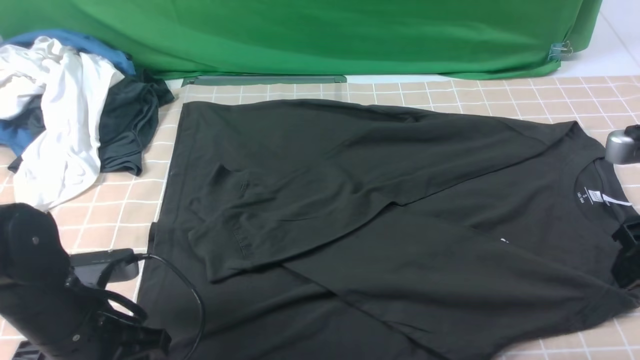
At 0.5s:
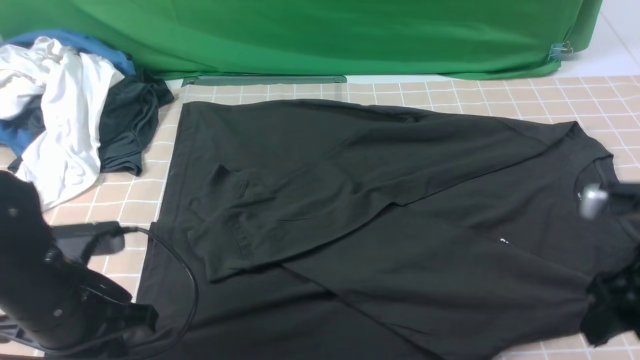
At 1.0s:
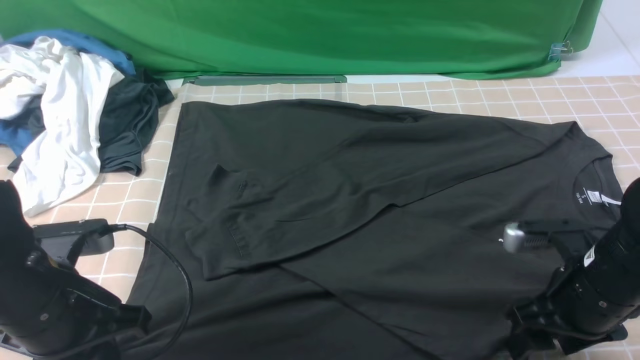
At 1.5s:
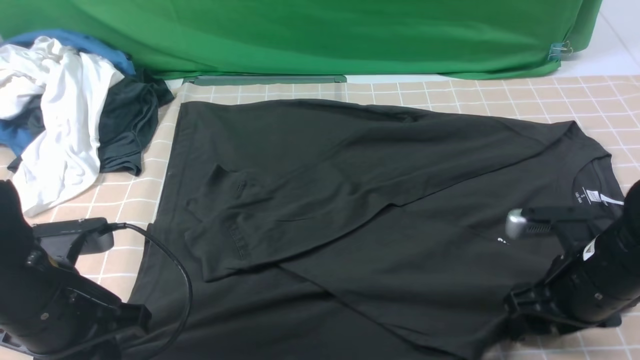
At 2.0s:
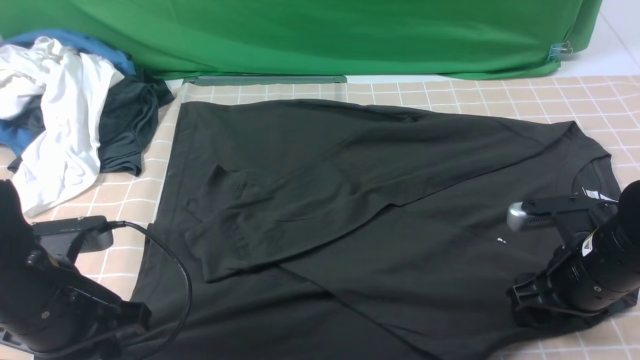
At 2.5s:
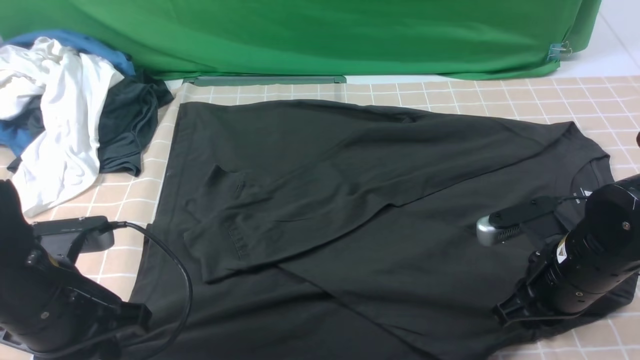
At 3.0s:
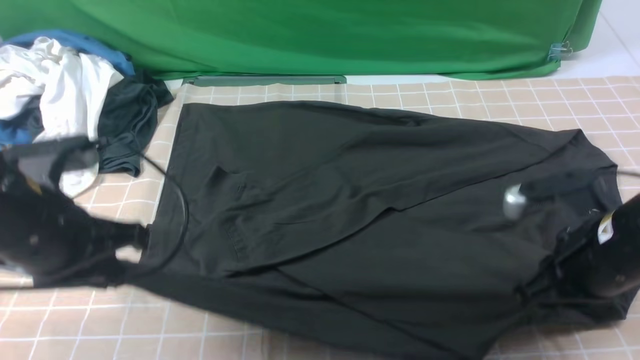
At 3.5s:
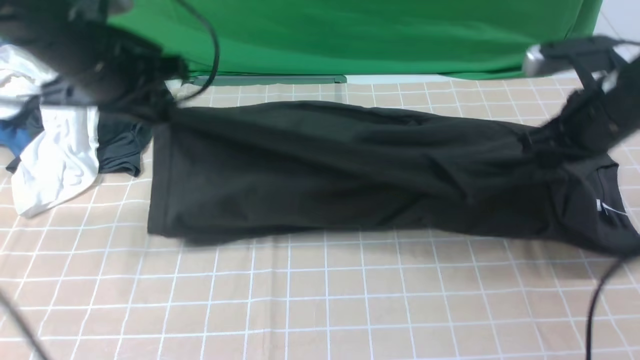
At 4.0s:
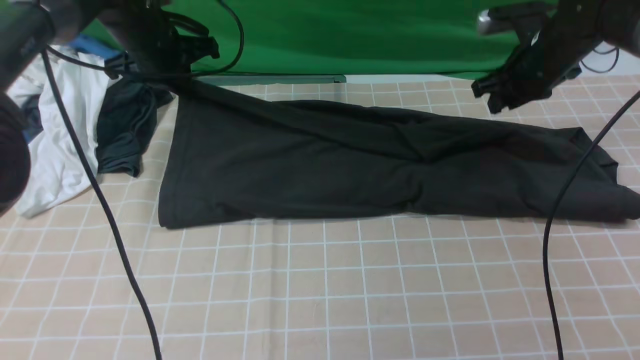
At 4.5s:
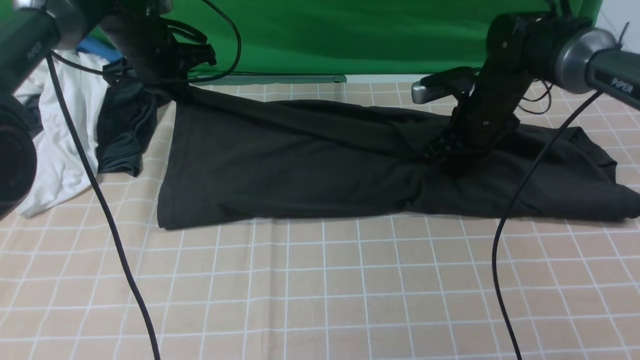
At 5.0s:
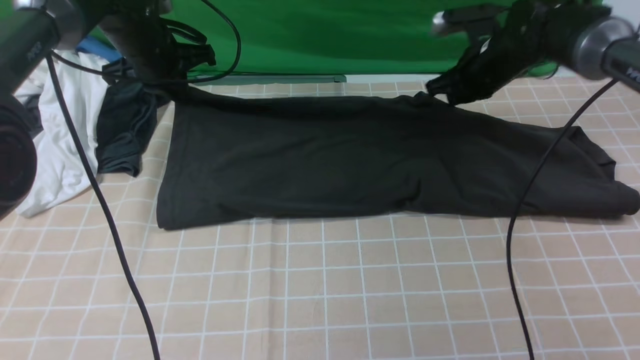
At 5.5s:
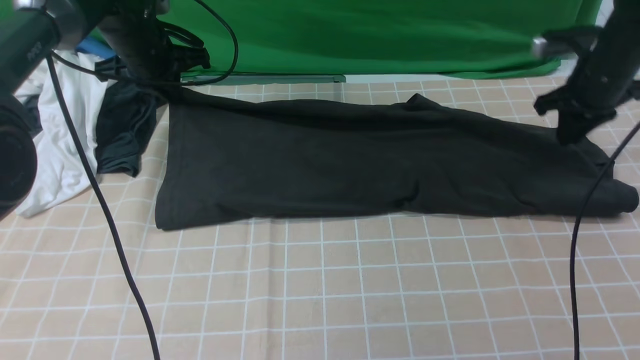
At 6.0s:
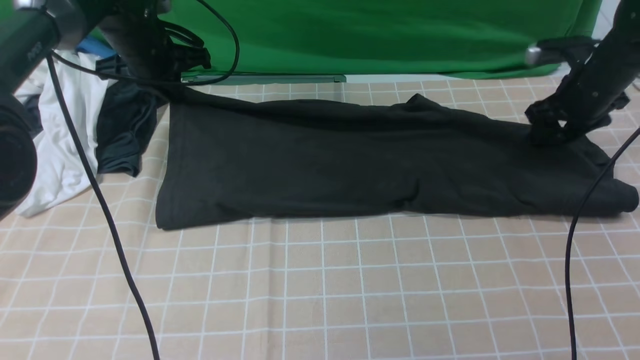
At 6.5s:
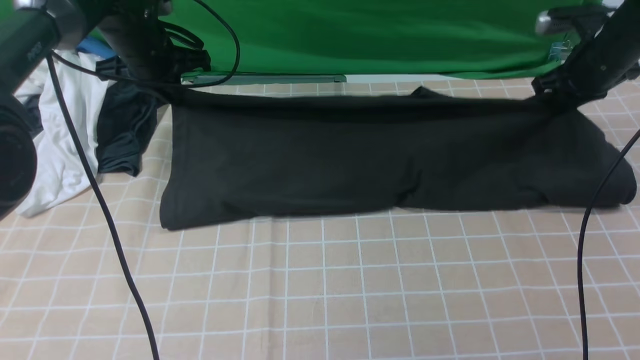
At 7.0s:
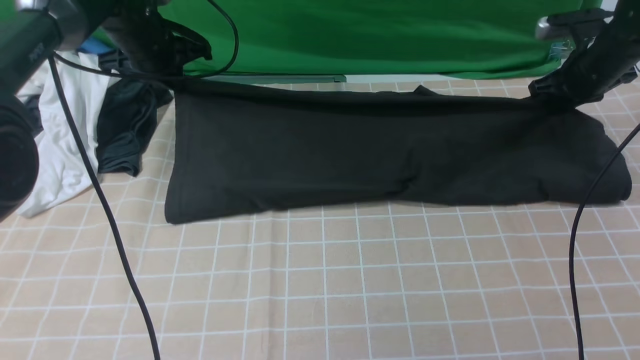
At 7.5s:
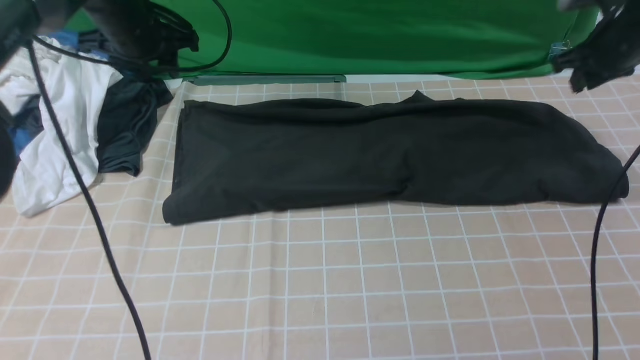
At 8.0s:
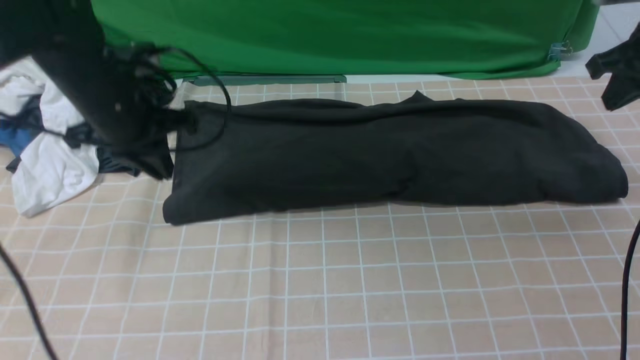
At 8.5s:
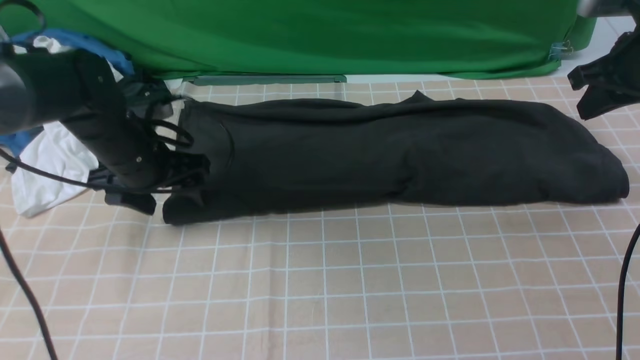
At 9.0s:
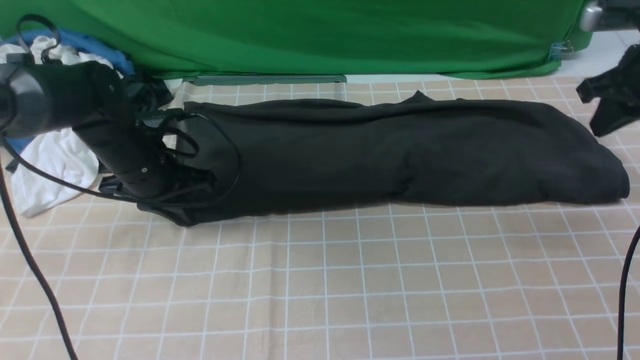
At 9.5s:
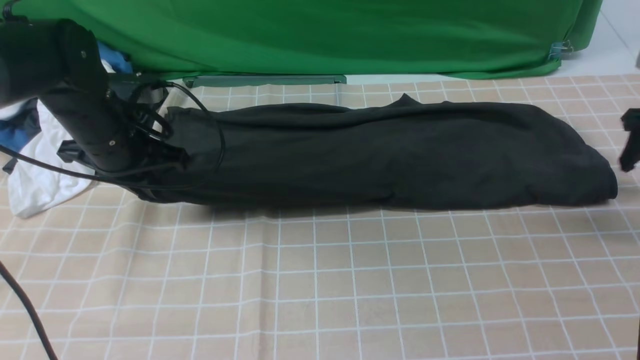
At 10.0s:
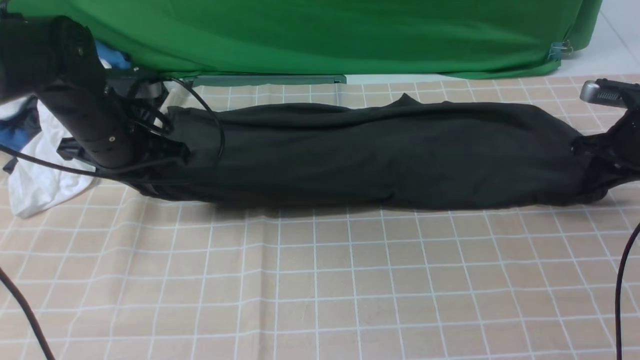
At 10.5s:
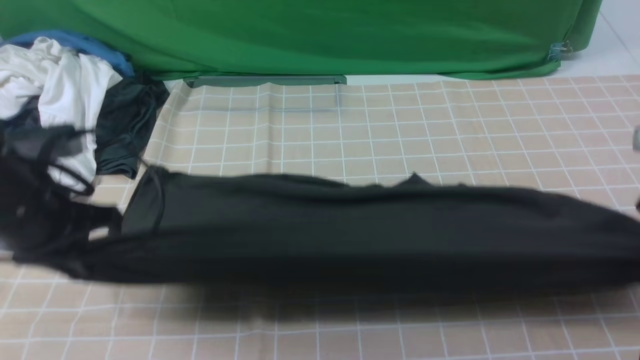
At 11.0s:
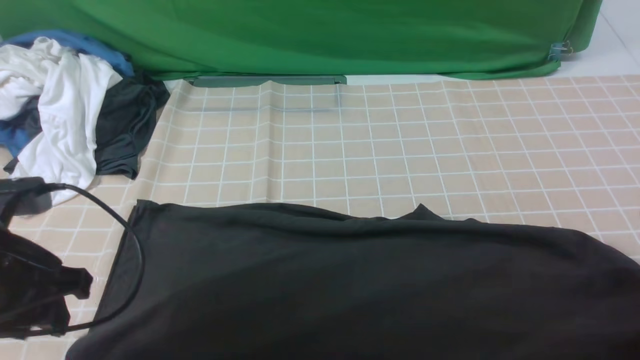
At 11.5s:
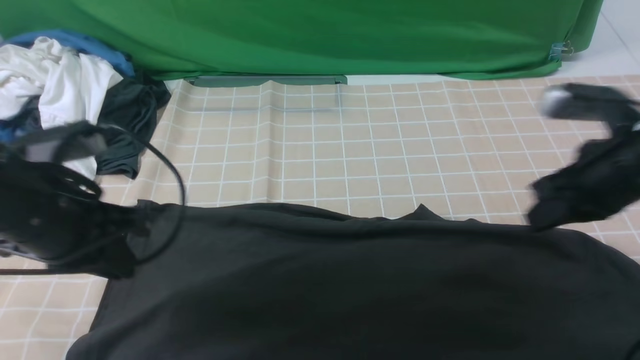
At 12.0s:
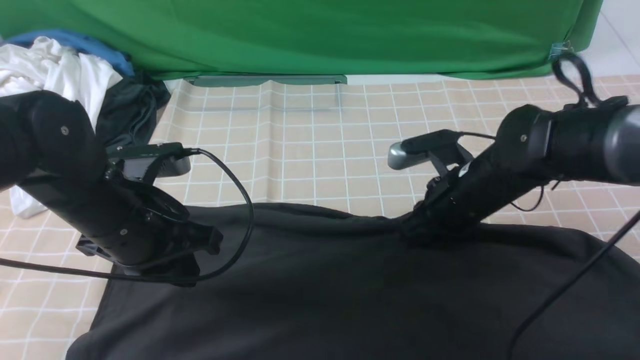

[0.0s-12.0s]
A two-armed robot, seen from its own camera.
Step, 0.0s to 2.5s: use both arms simultaneously to clamp the lower edge of the clothing fabric.
Step, 3.0s to 7.0s: use both arms to drag the lower edge of the fabric forward and fold it over the upper edge.
0.0s to 2.0s: The left gripper shifts approximately 5 cm upward, and closes its fingers; the right gripper goes some 15 cm downward and to the left.
2.0s to 4.0s: Both grippers move forward, approximately 25 cm. The right gripper closes up.
4.0s to 6.0s: The right gripper heads to the right, covering approximately 10 cm, and opens up.
6.0s to 8.0s: The right gripper shifts some 15 cm upward and backward, and closes, while the left gripper shifts approximately 10 cm backward.
8.0s to 10.0s: The right gripper moves downward, about 10 cm, and opens, then closes again. The left gripper opens, then closes once more.
10.0s to 12.0s: The left gripper shifts roughly 10 cm backward and to the right, and opens and closes again; the right gripper travels to the left by about 25 cm.

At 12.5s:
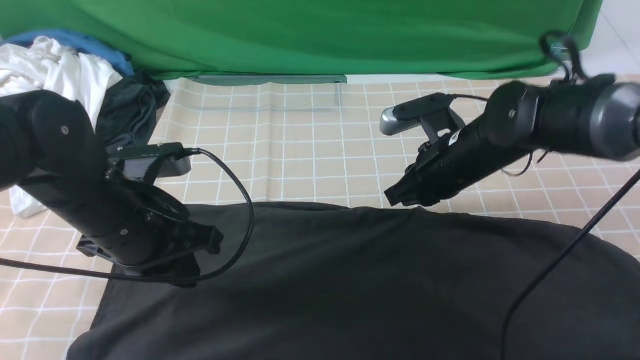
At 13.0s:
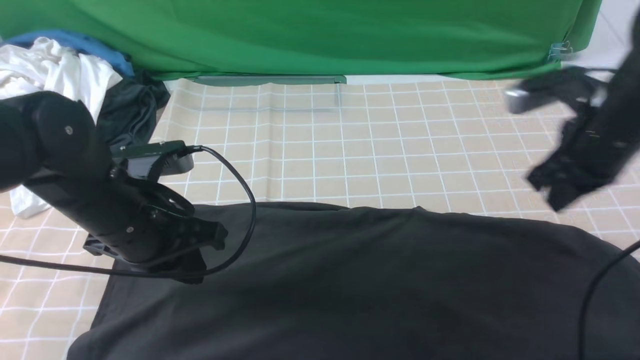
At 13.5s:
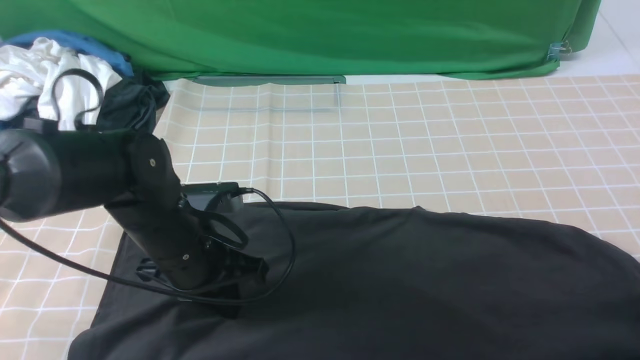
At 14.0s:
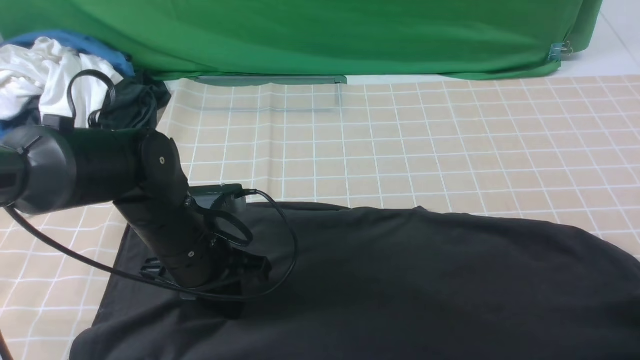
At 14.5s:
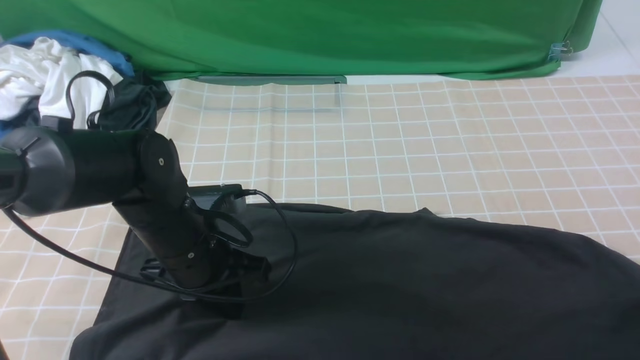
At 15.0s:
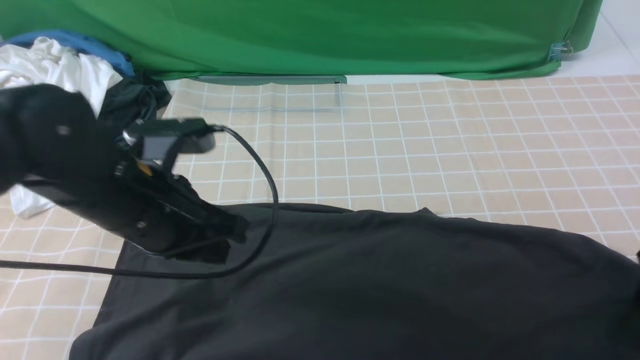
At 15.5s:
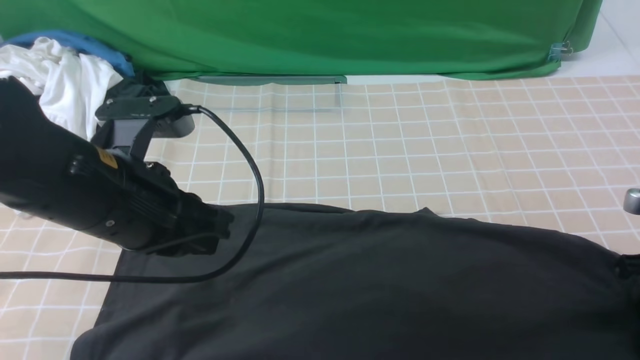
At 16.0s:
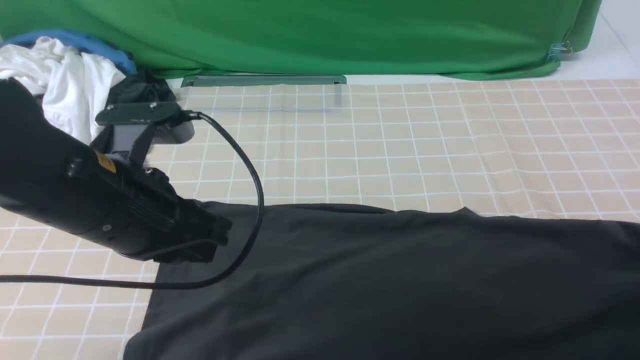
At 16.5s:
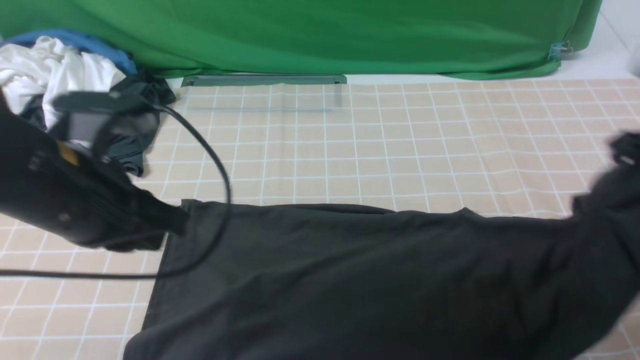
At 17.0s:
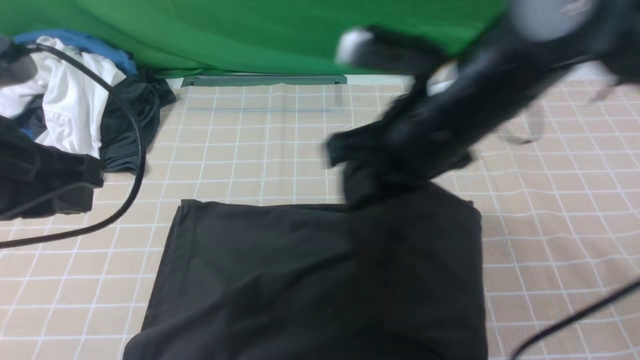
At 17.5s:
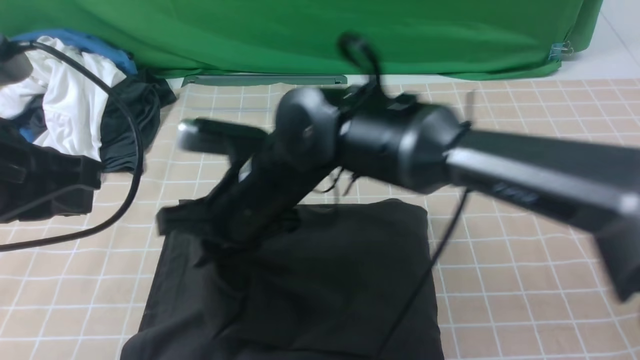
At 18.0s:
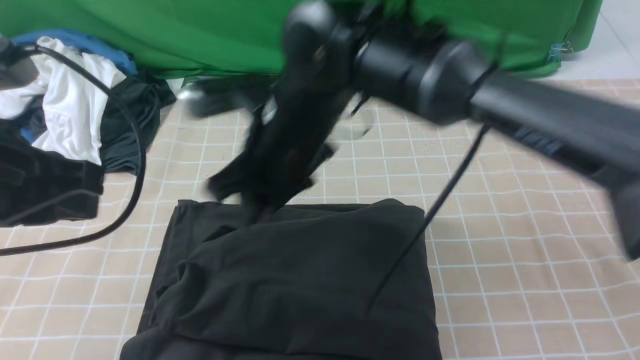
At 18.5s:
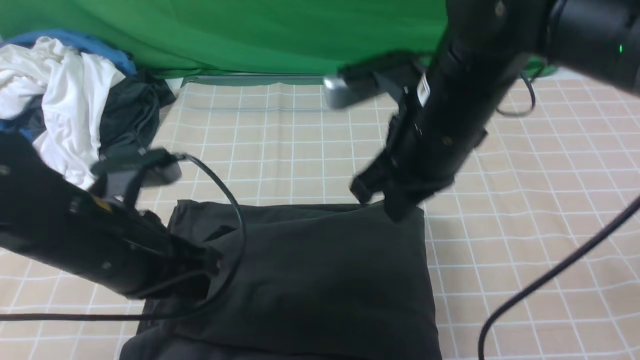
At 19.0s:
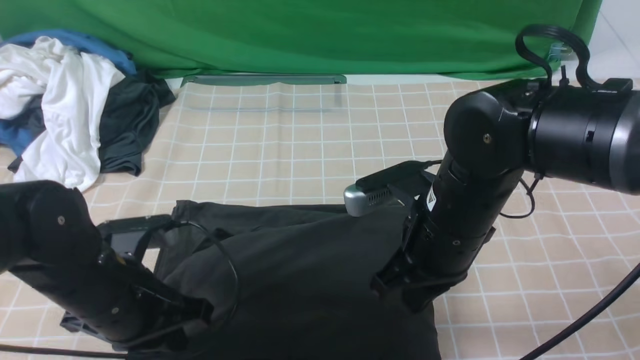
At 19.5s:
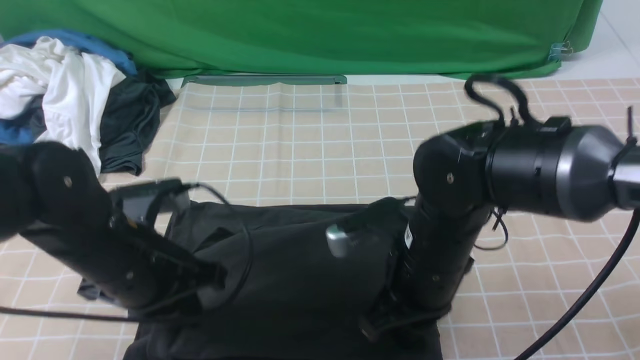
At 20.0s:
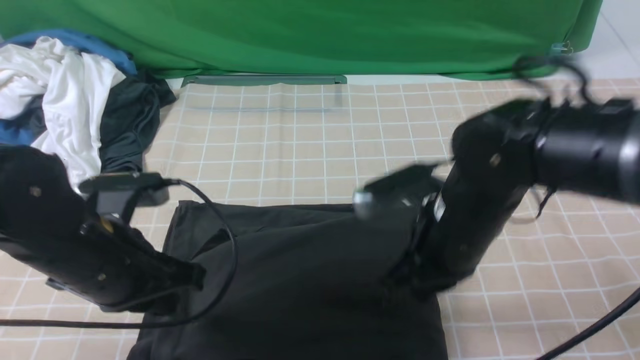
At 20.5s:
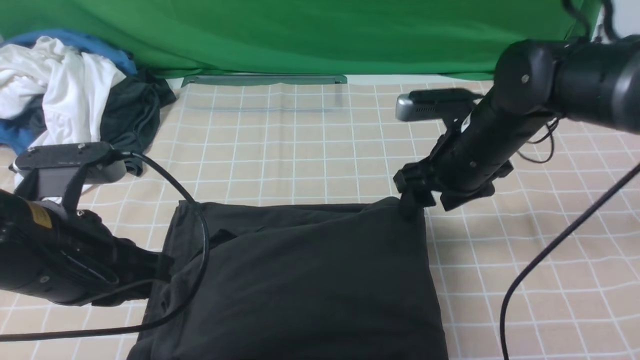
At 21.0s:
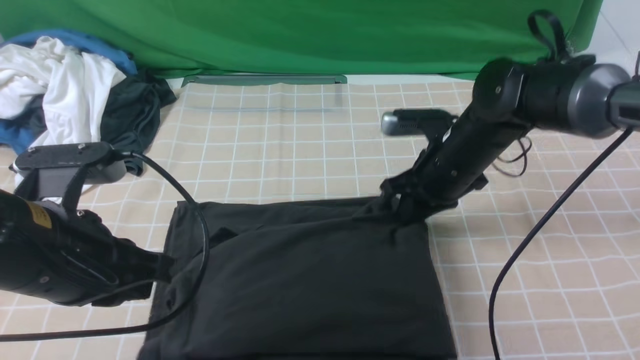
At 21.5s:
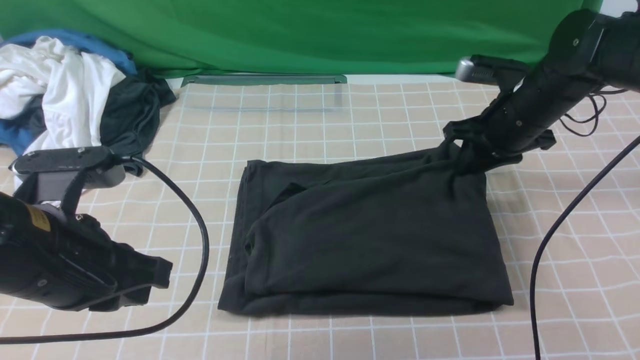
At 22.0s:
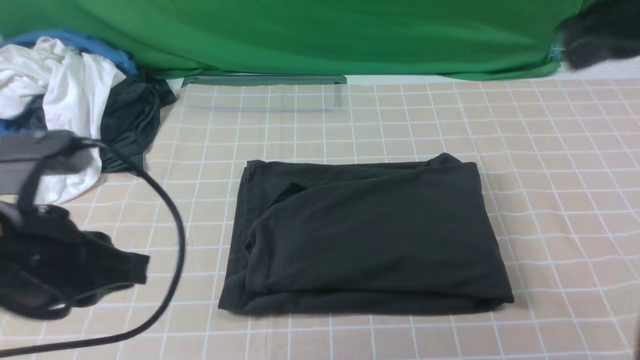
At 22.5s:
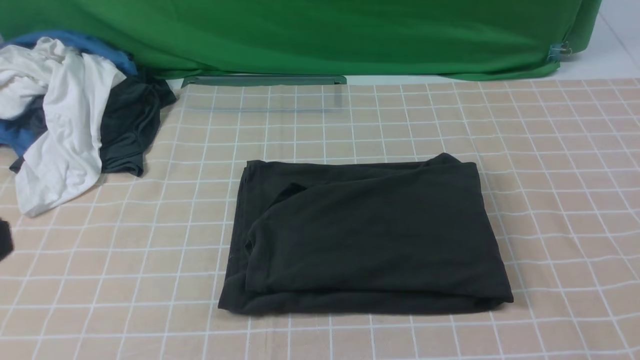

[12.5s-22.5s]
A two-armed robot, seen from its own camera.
Step, 12.5s to 15.5s: use the right arm to clamp the right edge of the fabric.
Step, 16.0s to 17.5s: use the right arm to drag the right edge of the fabric to the left and folds it over the left edge.
12.5s to 14.5s: The left gripper travels downward by approximately 5 cm, while the right gripper shifts some 30 cm to the right and backward, and opens up.
14.5s to 16.5s: The right gripper goes roughly 15 cm upward, to the left and forward, and closes up; the left gripper is displaced upward by roughly 15 cm.
16.5s to 18.5s: The left gripper heads downward, covering approximately 5 cm. The right gripper is displaced to the left by some 20 cm.
18.5s to 20.5s: The right gripper heads downward, to the right and forward, covering roughly 15 cm, and opens.
20.5s to 22.5s: The left gripper travels backward and upward by roughly 15 cm. Meanwhile the right gripper heads backward, upward and to the right, covering some 40 cm, and closes its fingers.
